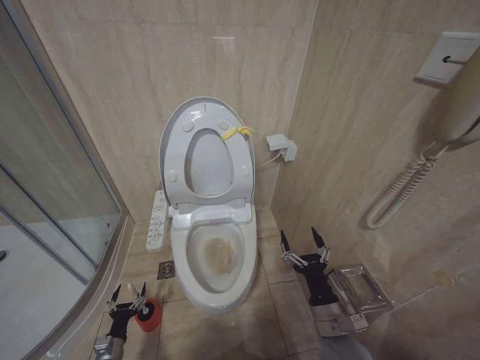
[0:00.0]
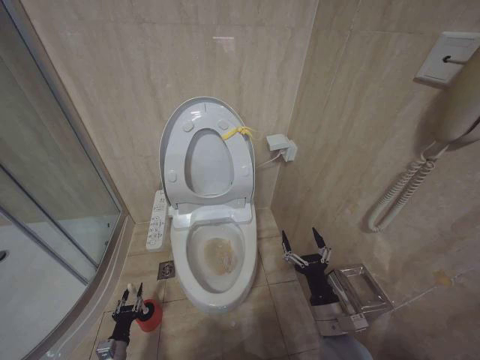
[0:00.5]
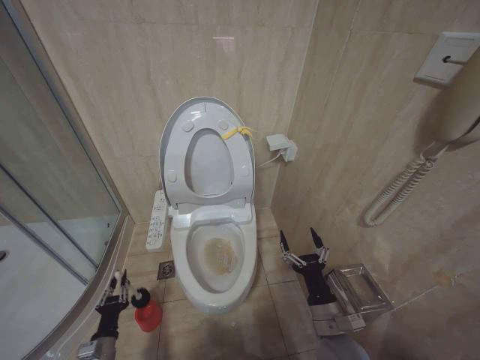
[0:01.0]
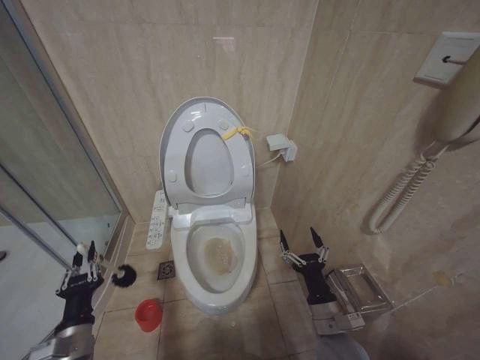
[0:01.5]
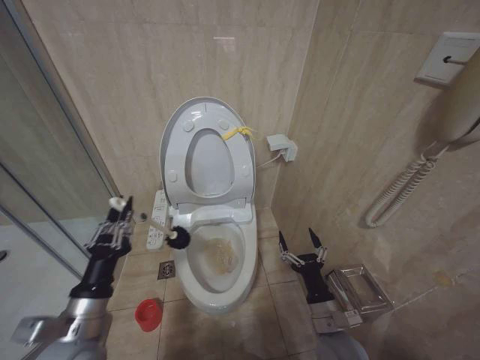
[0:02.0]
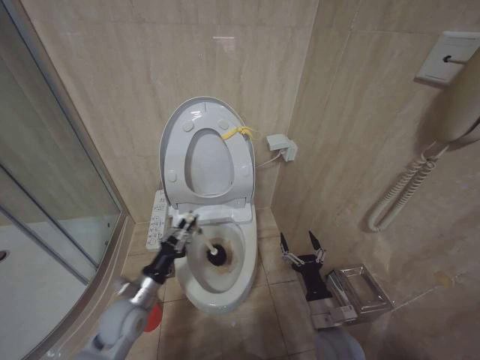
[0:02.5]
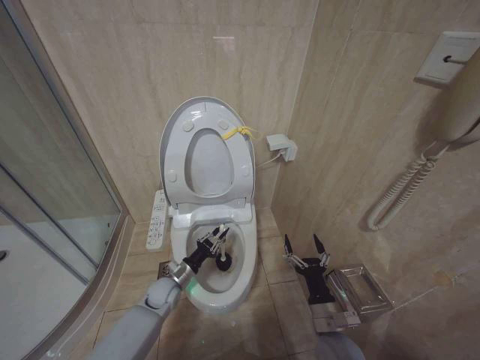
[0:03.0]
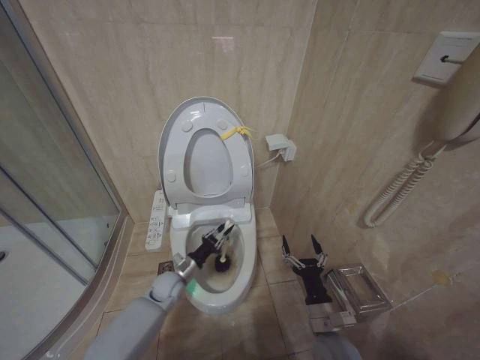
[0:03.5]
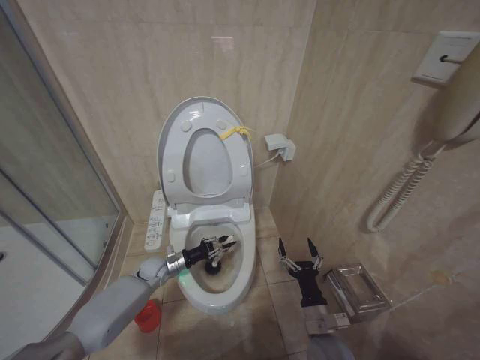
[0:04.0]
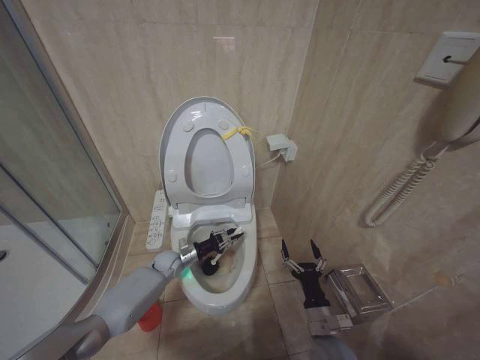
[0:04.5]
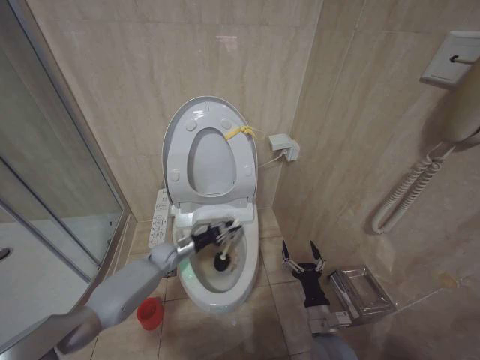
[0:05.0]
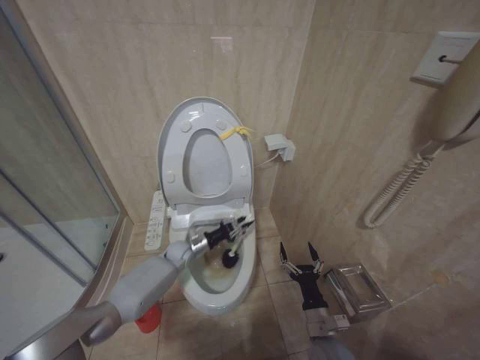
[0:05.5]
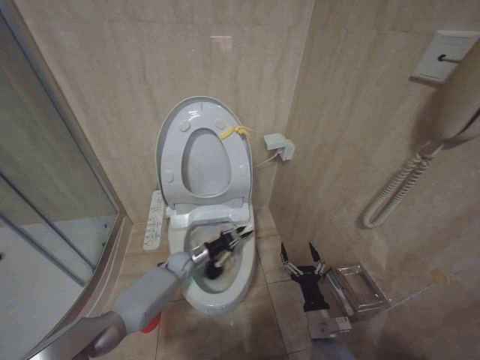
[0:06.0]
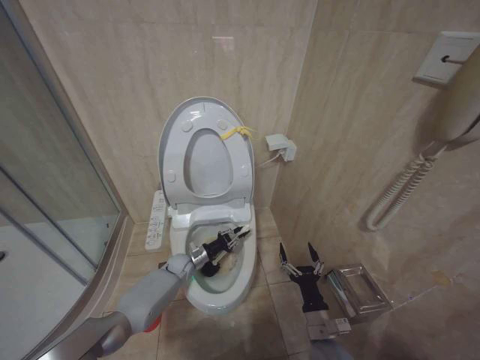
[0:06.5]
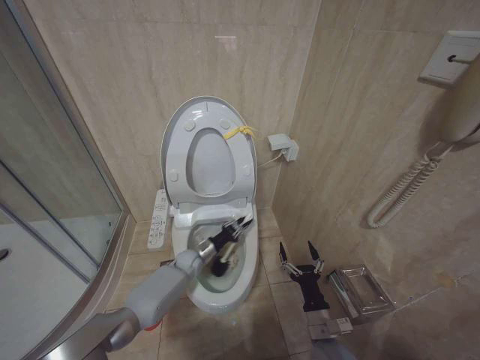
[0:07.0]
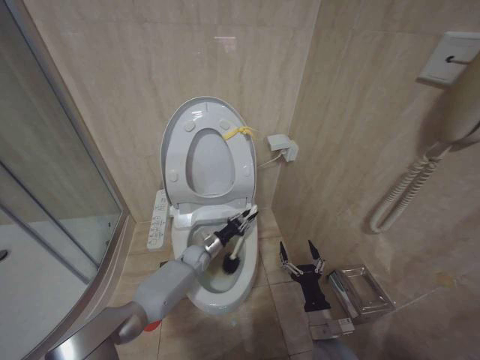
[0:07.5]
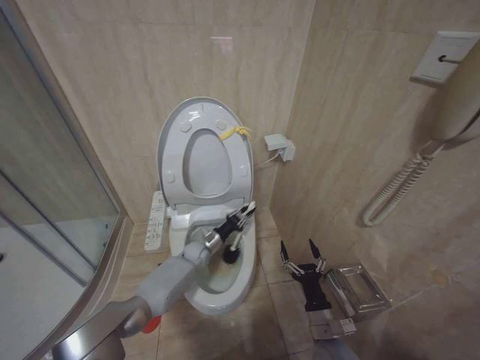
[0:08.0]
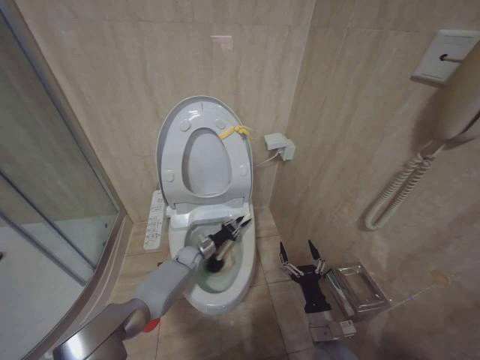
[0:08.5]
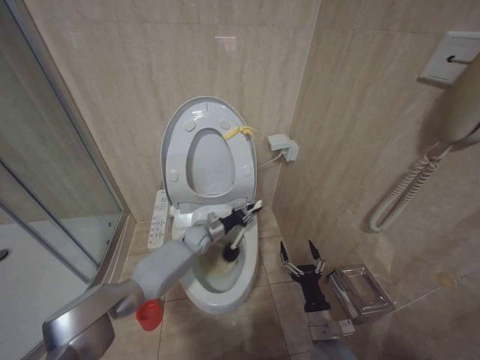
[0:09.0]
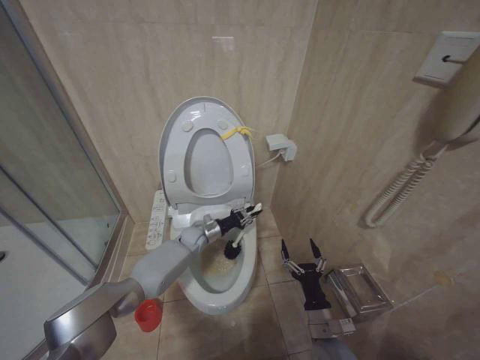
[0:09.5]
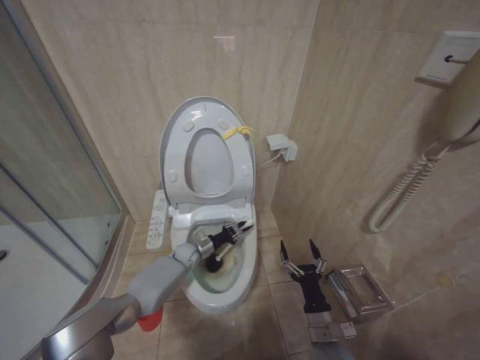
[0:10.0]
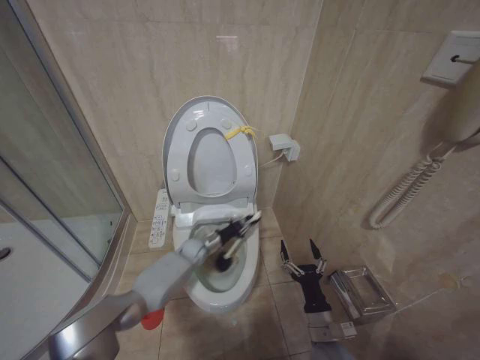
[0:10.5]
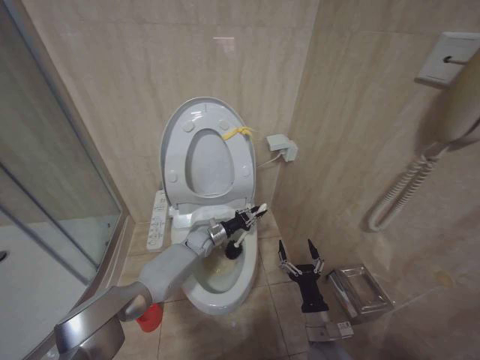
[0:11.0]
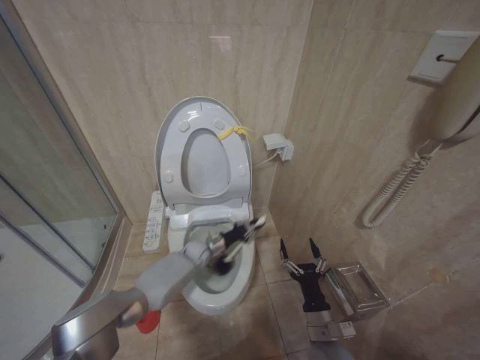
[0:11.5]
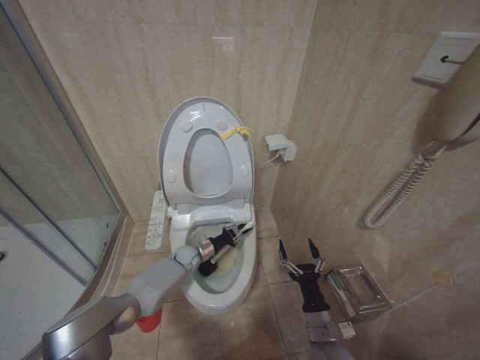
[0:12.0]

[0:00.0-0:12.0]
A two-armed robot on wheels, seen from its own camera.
Task of the whole recording: Open the toilet lid, clean the toilet bowl with a toilet brush, close the toilet lid, and flush.
0:00.0 to 0:02.0: The left gripper heads upward, covering approximately 35 cm, and closes up.
0:02.0 to 0:04.0: The left gripper is displaced forward and downward by about 35 cm.
0:04.0 to 0:06.0: The left gripper goes roughly 10 cm to the right.
0:10.0 to 0:12.0: The grippers make only small movements.

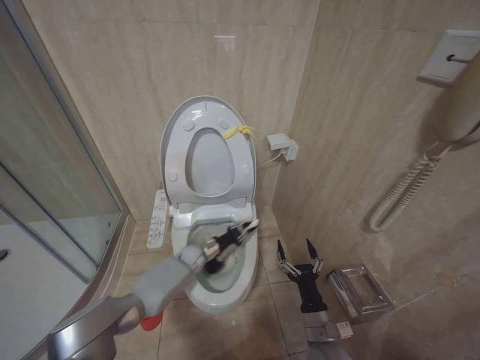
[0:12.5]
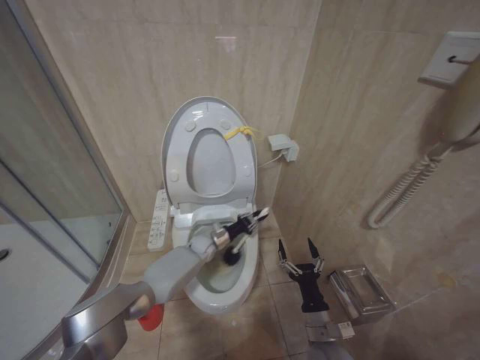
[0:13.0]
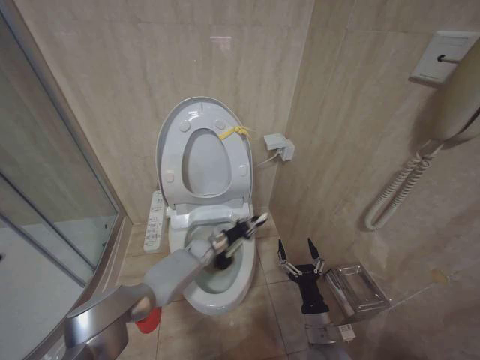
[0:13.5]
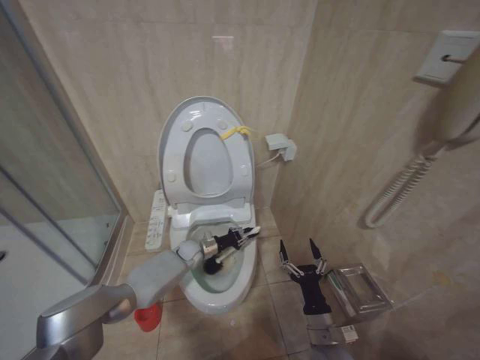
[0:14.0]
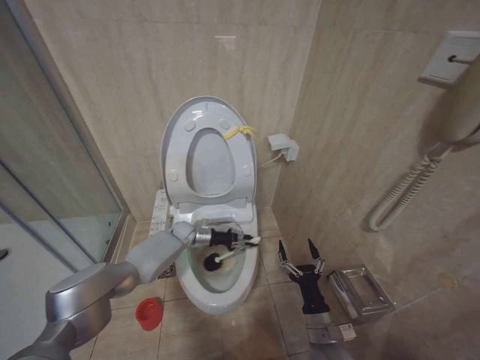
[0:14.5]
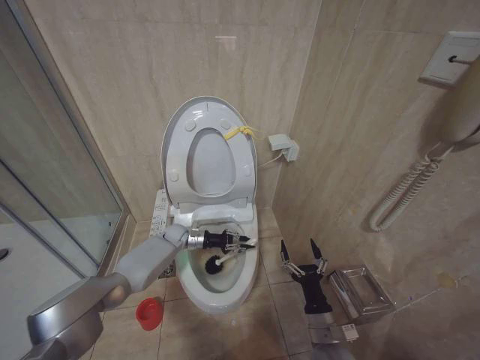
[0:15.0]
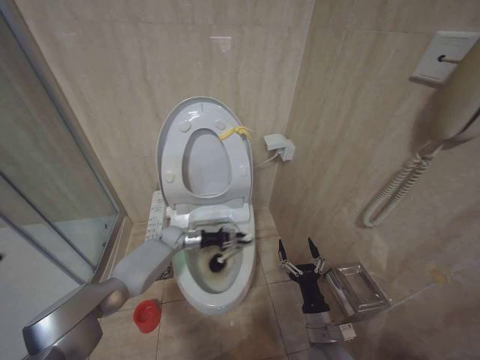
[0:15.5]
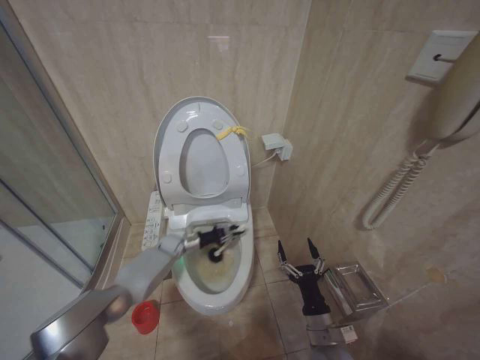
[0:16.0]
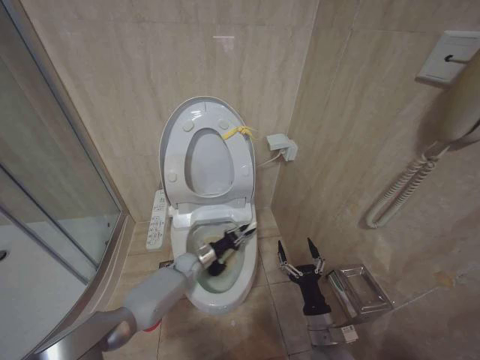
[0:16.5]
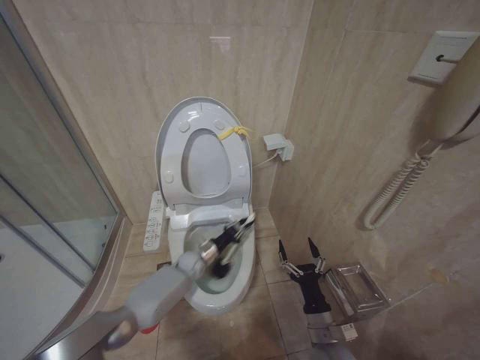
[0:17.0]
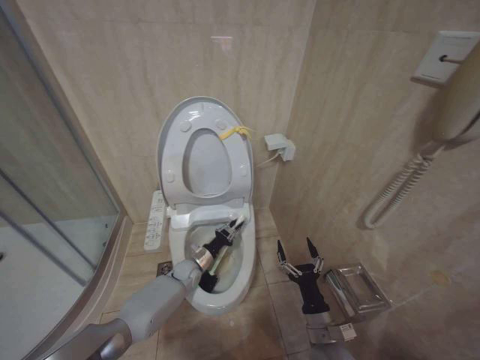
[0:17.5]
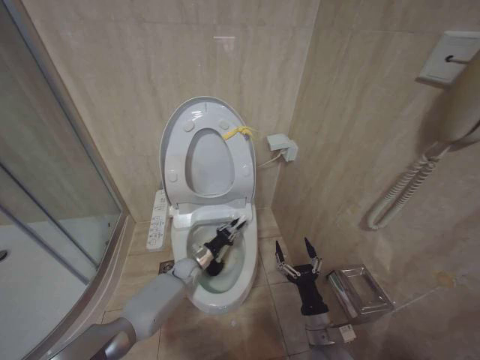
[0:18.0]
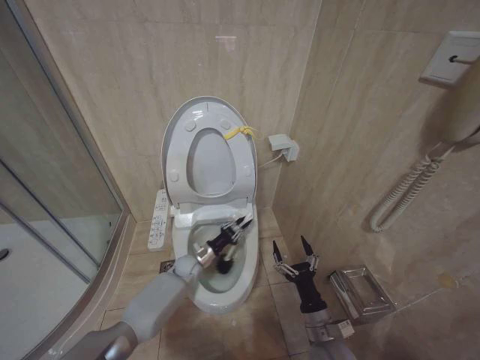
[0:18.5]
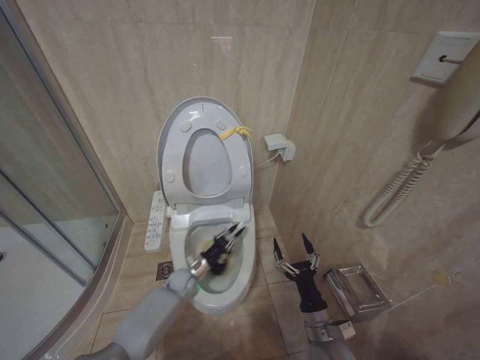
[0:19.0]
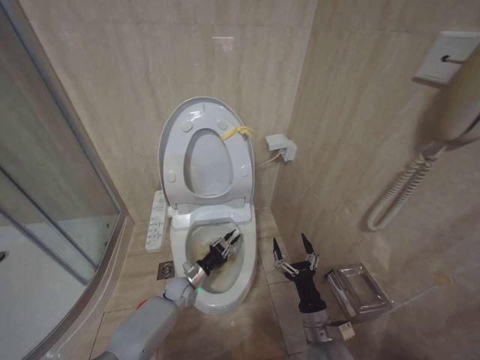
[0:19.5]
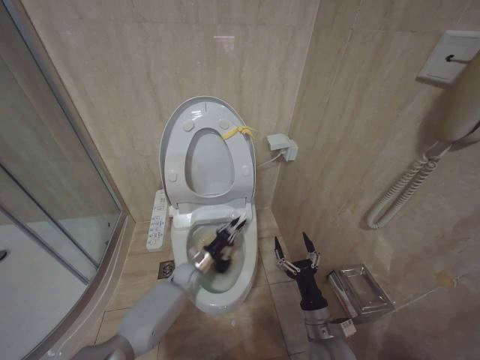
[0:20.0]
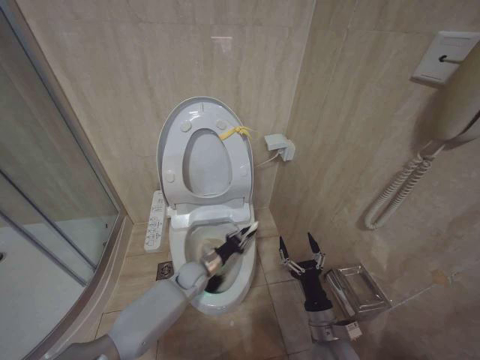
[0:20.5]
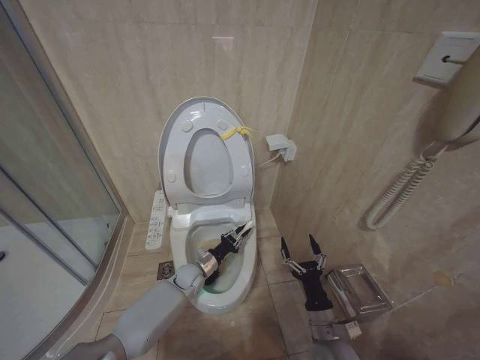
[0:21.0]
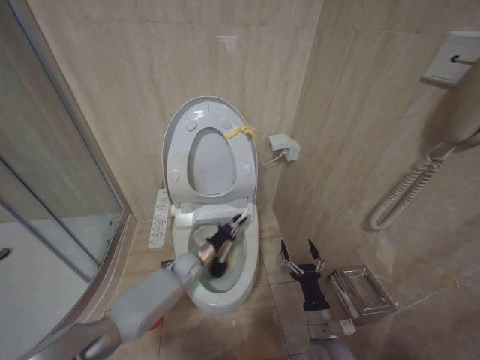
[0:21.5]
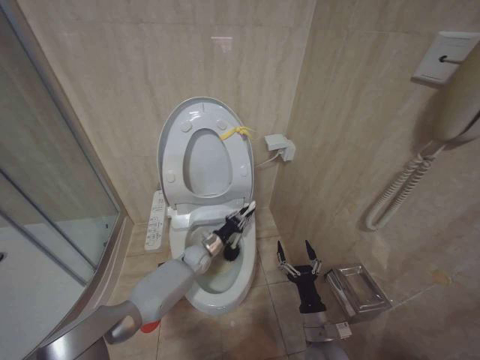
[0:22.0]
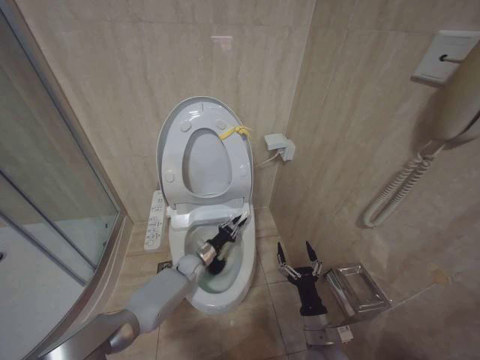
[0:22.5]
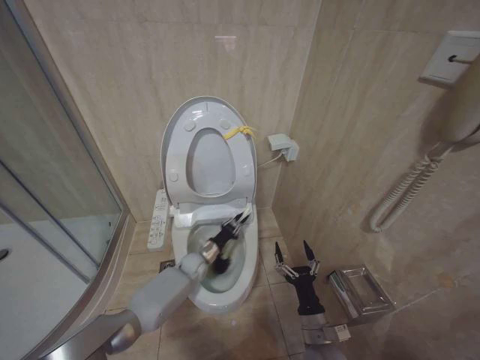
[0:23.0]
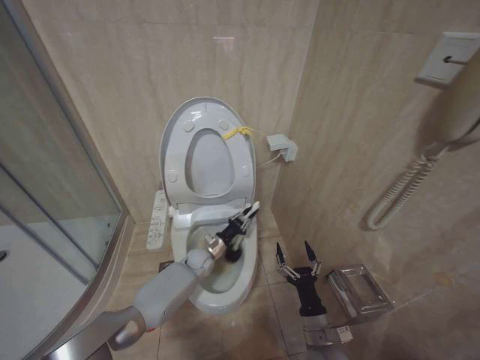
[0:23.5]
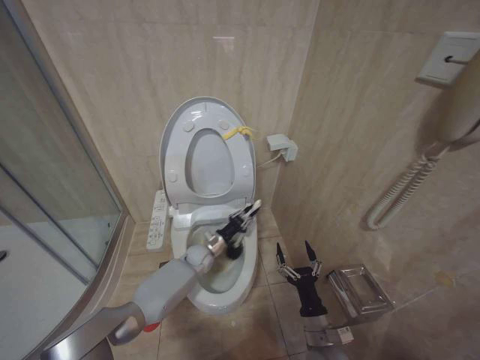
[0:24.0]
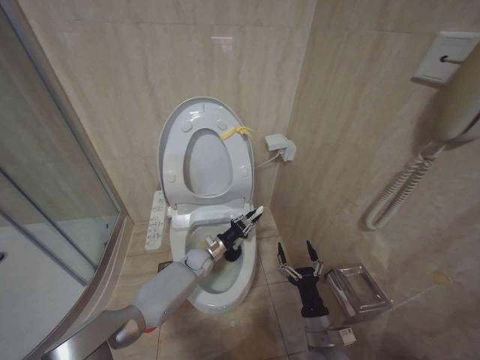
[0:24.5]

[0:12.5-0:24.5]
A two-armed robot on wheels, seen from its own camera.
Task of the whole recording: Open the toilet lid, clean the toilet bowl with a toilet brush, close the toilet lid, and flush.
0:12.5 to 0:14.5: The left gripper travels upward and forward by about 10 cm, and moves about 5 cm to the right and comes back.
0:14.5 to 0:16.5: The left gripper travels downward and backward by about 10 cm.
0:18.5 to 0:20.5: The left gripper is displaced upward, to the right and backward by about 10 cm.
0:20.5 to 0:22.5: The left gripper heads forward, covering about 5 cm.
0:22.5 to 0:24.5: The grippers stay close to where they were, moving slightly.

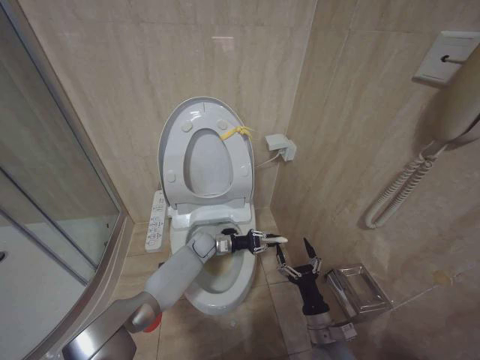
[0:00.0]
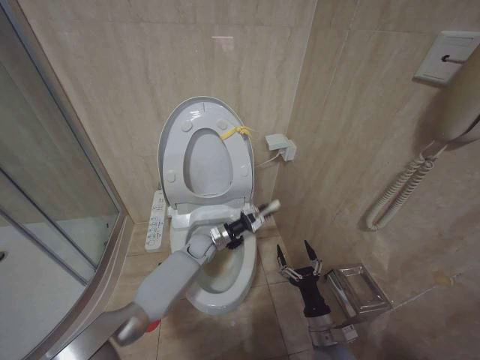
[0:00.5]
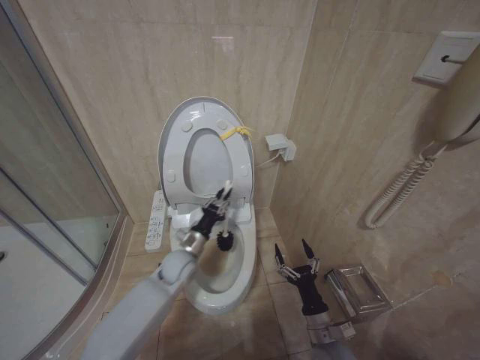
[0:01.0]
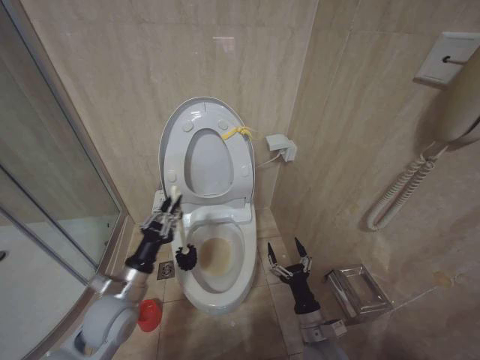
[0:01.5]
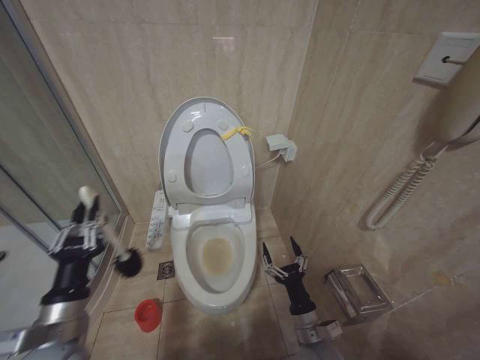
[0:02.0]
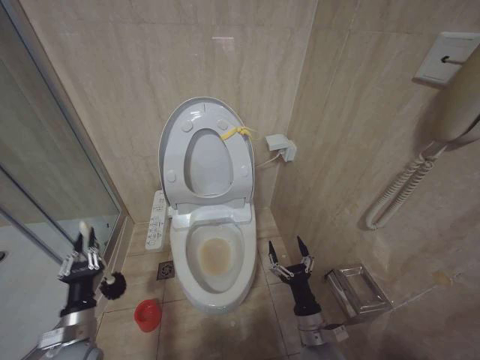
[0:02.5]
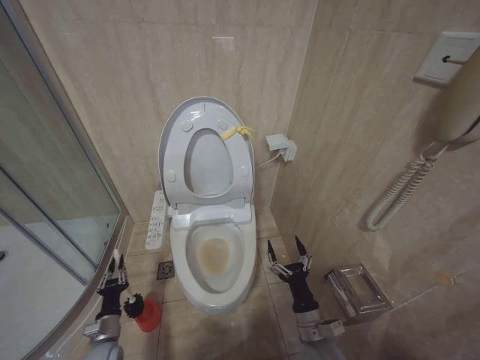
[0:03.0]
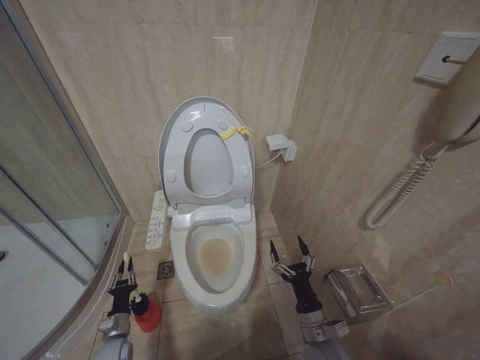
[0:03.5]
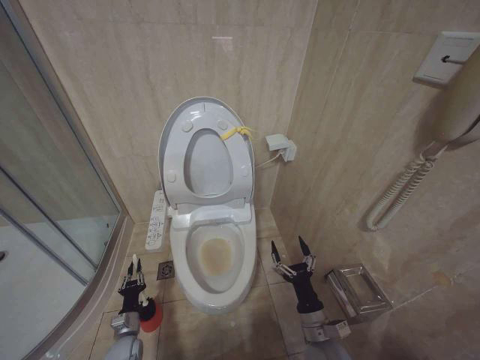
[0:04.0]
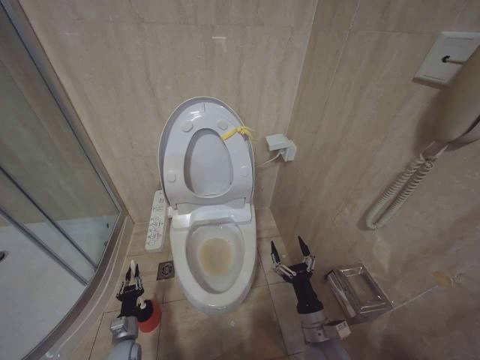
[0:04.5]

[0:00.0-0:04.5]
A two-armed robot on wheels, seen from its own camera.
Task of the whole recording: Open the toilet lid, clean the toilet bowl with a toilet brush, close the toilet lid, and flush.
0:00.0 to 0:02.0: The left gripper goes roughly 40 cm backward, to the left and upward.
0:02.0 to 0:04.5: The left gripper shifts roughly 35 cm downward.
